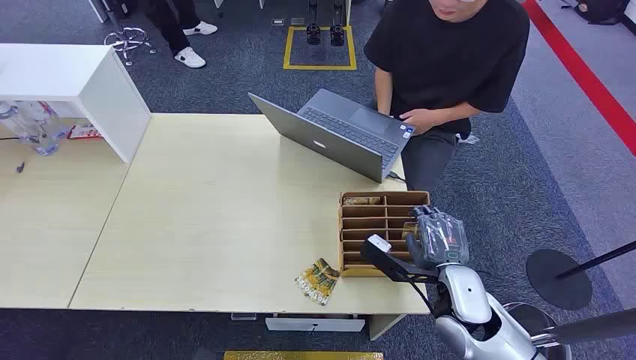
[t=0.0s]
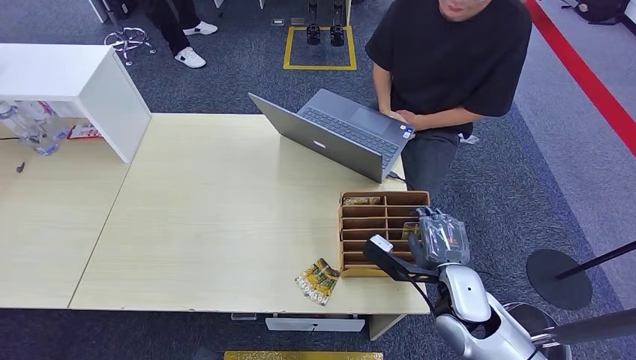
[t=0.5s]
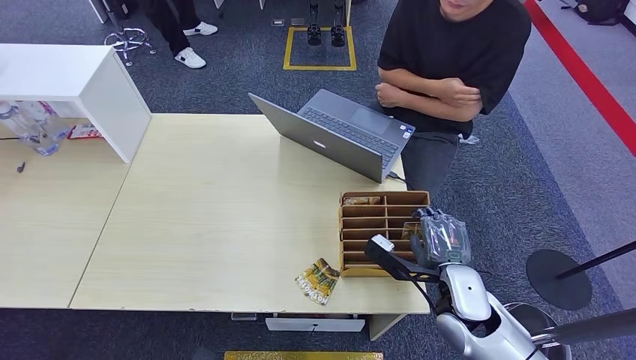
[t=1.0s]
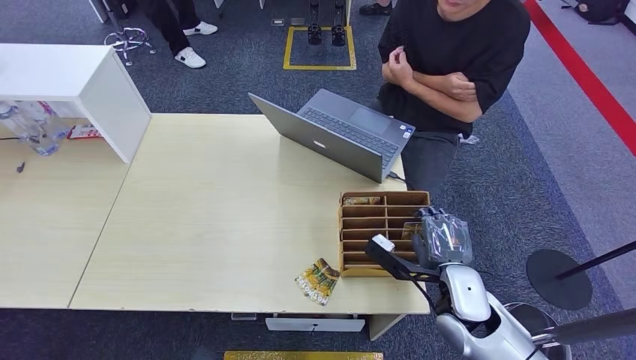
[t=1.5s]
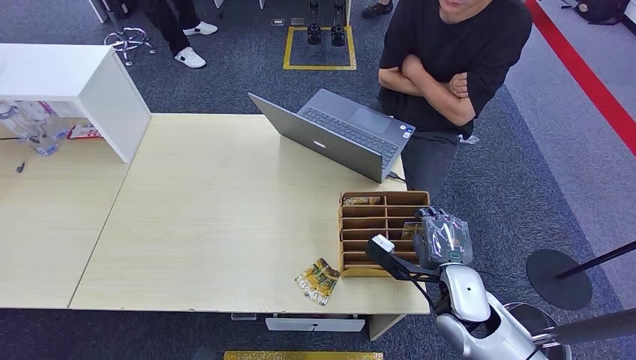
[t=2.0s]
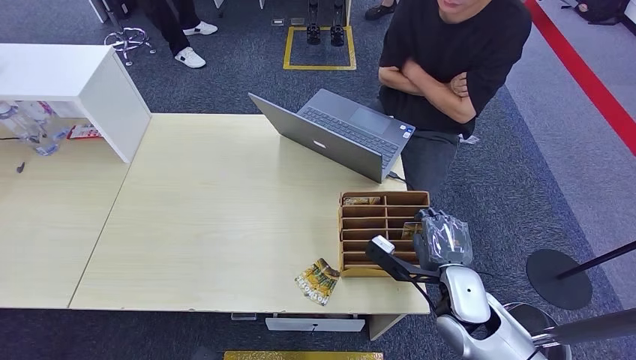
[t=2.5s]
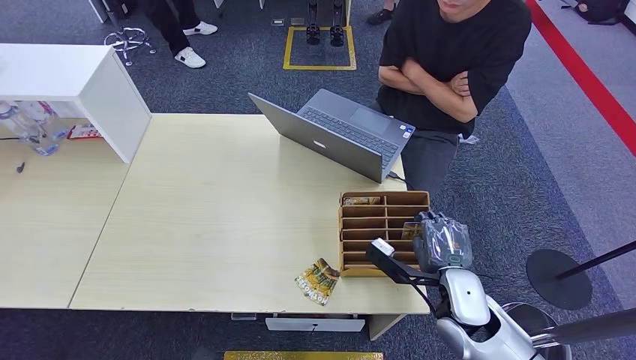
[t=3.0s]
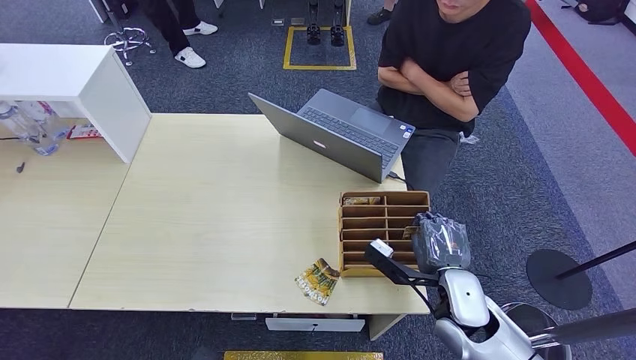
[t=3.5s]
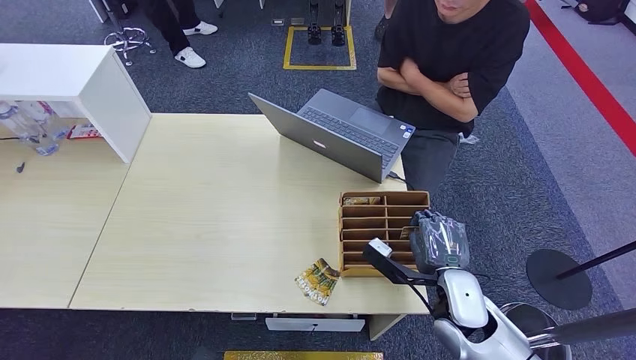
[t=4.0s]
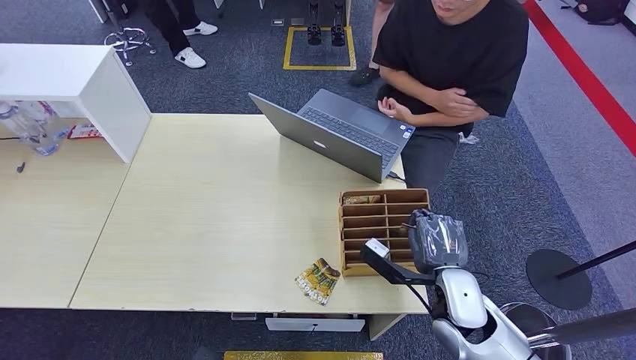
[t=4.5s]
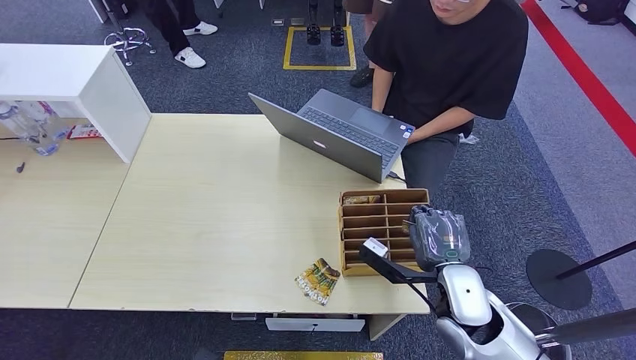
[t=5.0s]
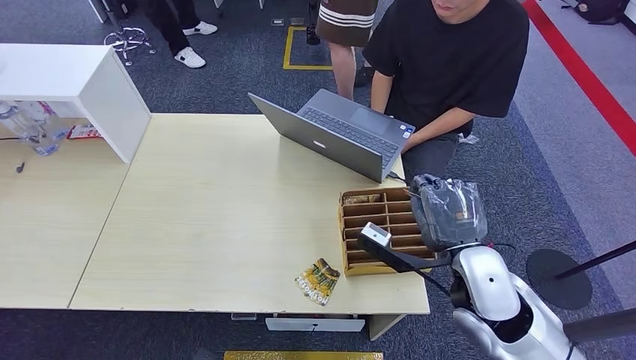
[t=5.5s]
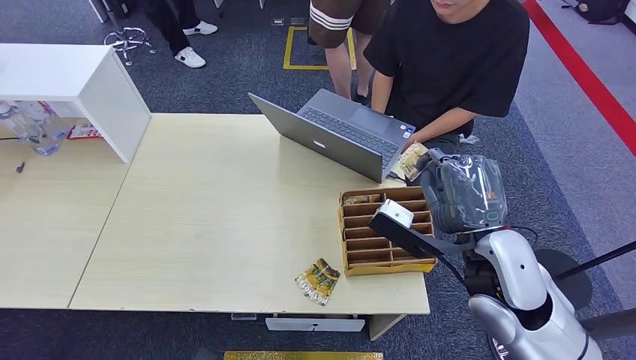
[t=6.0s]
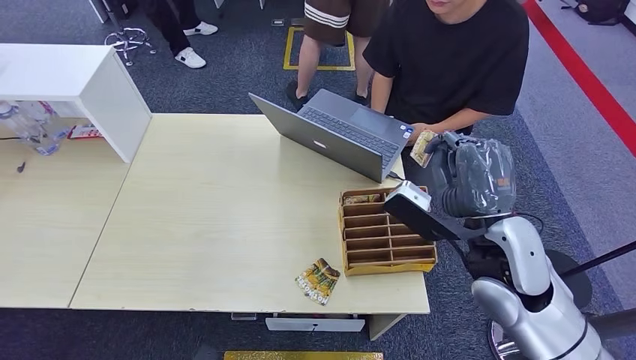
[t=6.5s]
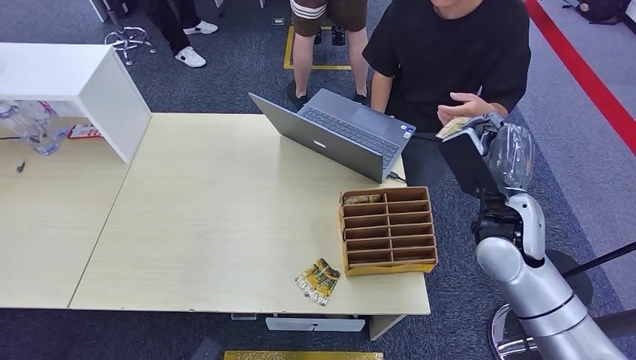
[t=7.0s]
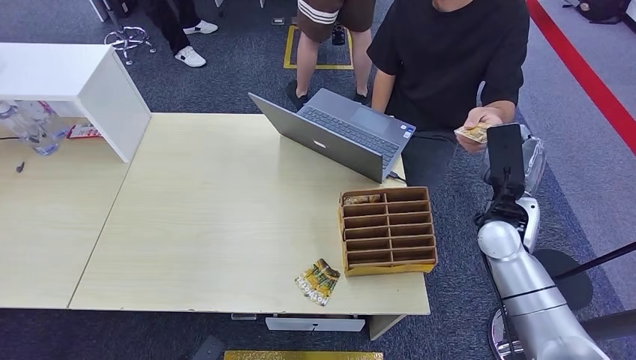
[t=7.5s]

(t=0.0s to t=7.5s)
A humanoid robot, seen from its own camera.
Step, t=0.0s - t=6.0s: Pick up the room card from the card holder.
Step, t=6.5s - t=7.5s: Hand the room card to the target.
t=2.0s - t=4.0s: Both hands stay about where they are.
t=4.0s - t=5.5s: The right hand is displaced upward by about 10 cm.
t=5.5s - t=7.5s: The right hand heads forward and to the right, covering roughly 15 cm.
